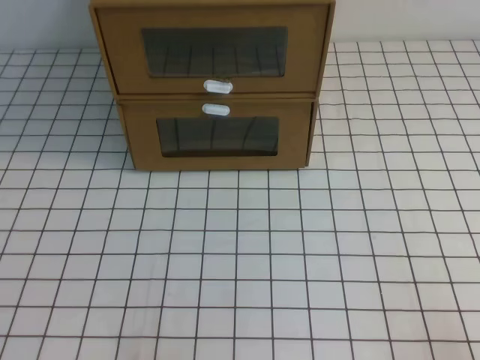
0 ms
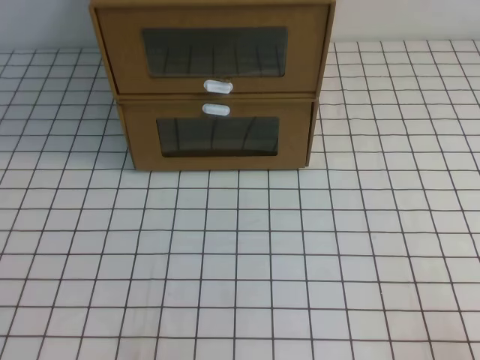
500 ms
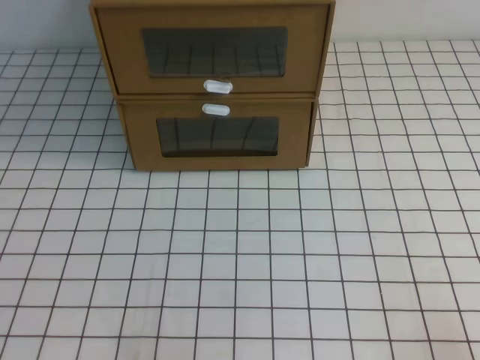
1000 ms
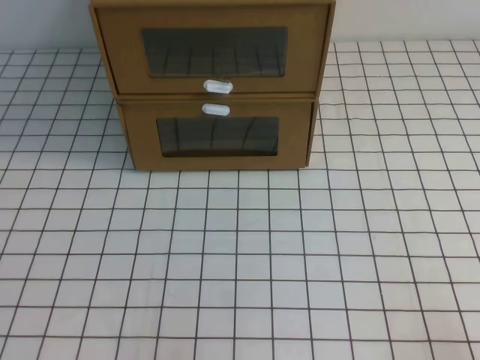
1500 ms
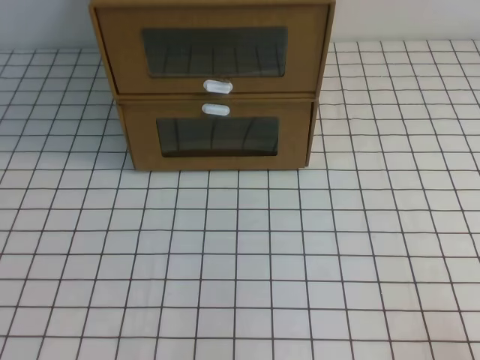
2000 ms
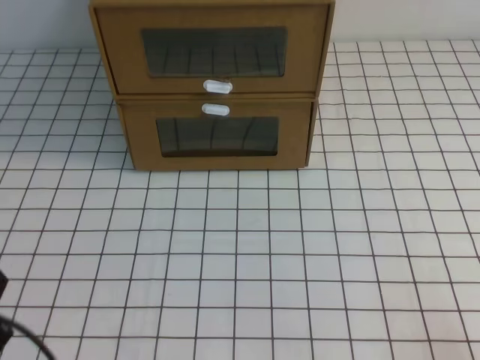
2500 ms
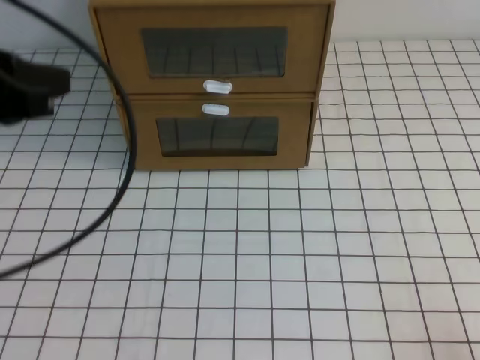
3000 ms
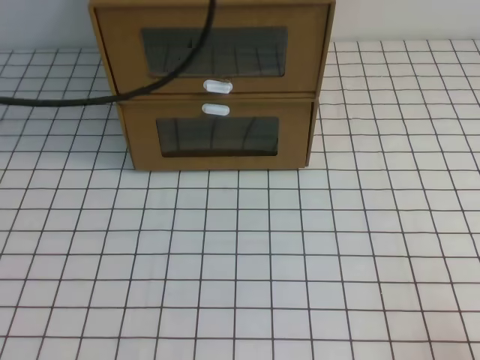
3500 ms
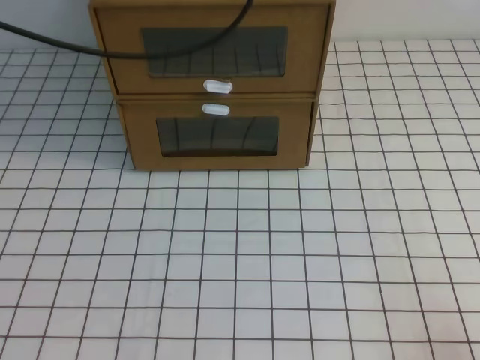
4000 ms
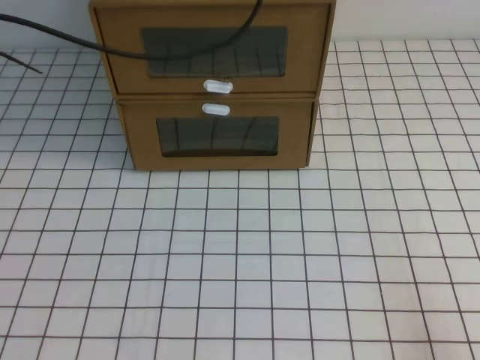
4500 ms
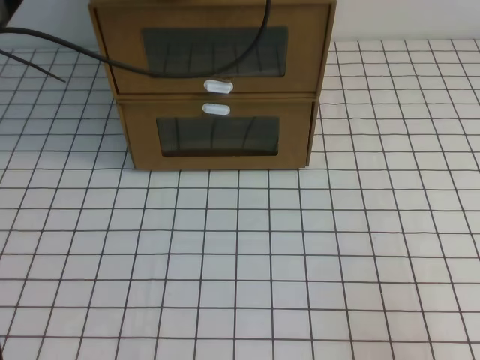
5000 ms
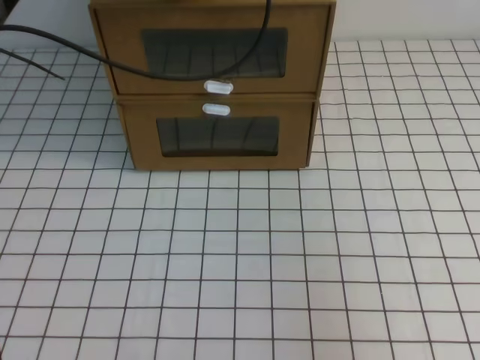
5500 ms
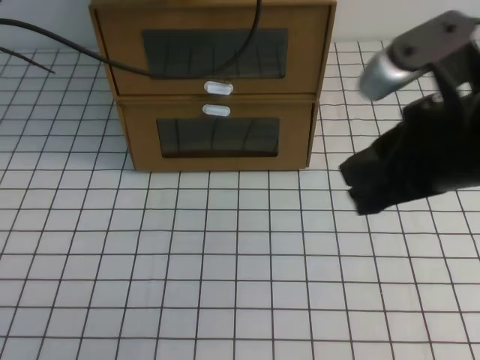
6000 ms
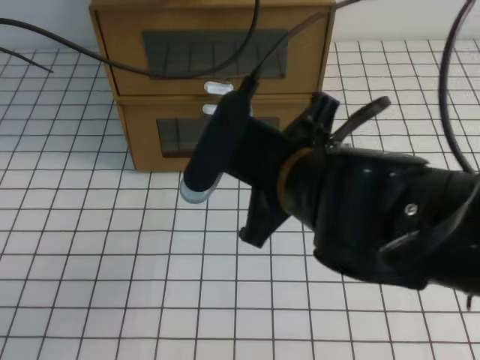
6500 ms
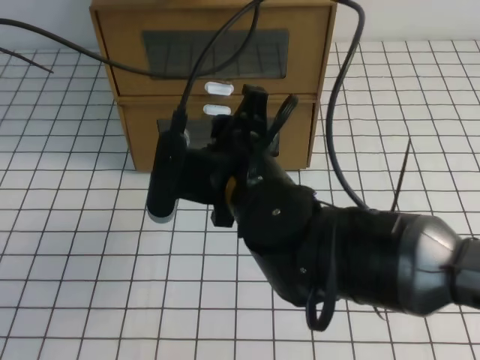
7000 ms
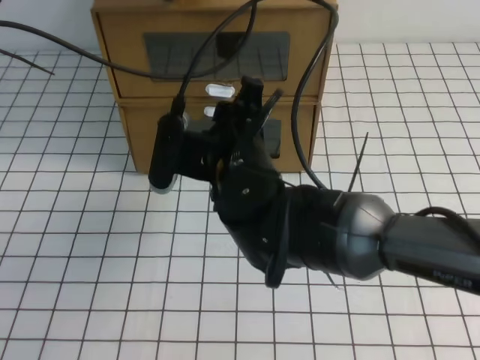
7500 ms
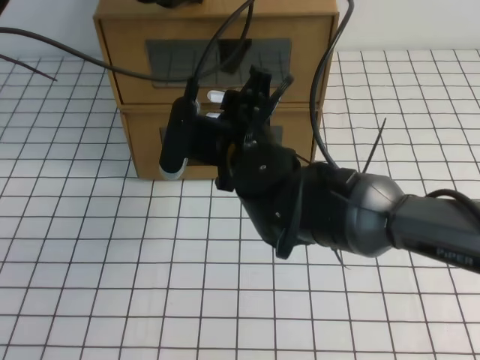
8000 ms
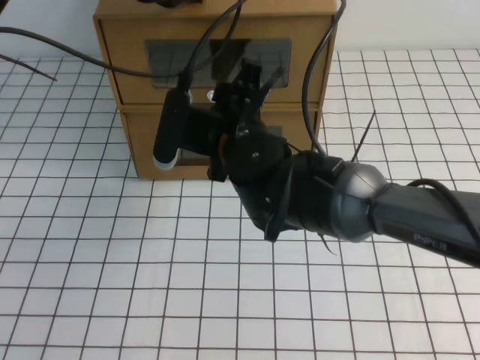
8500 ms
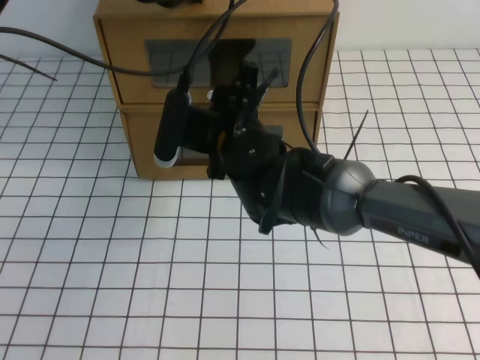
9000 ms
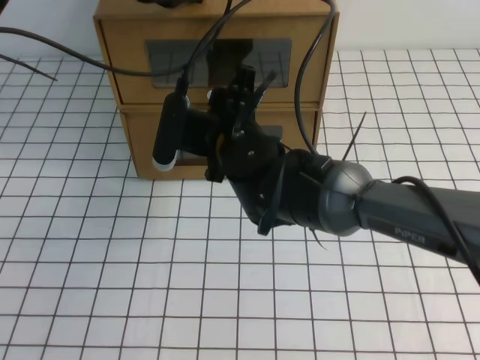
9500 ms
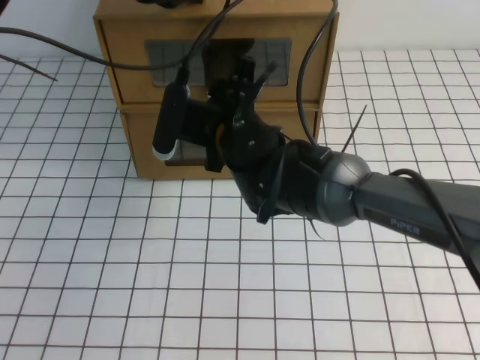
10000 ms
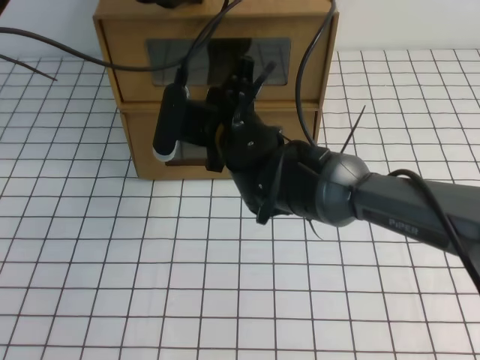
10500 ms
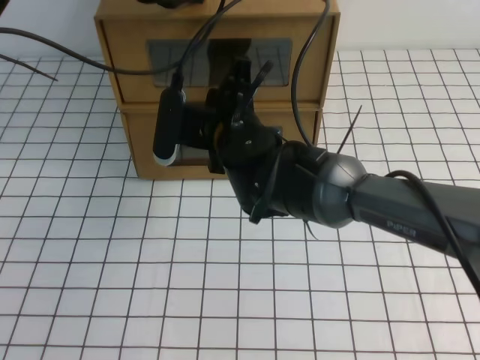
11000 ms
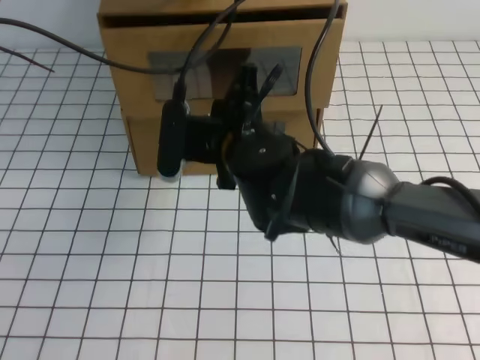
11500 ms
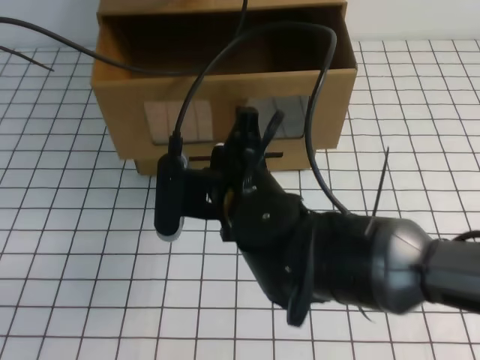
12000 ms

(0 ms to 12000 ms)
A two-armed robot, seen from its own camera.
Task of the whole recording: open the shoebox on the white tablecloth.
2000 ms - 4000 ms: The left gripper goes approximately 40 cm forward, upward and to the right.
4000 ms - 6000 ms: The left gripper moves forward and downward, approximately 10 cm, while the right gripper travels upward, forward and to the left by some 30 cm.
6000 ms - 8000 ms: The right gripper shifts approximately 25 cm to the left, forward and downward, and opens.
8000 ms - 10000 ms: There are only small adjustments of the grippers.
10000 ms - 12000 ms: The right gripper shifts some 10 cm backward, and closes up.

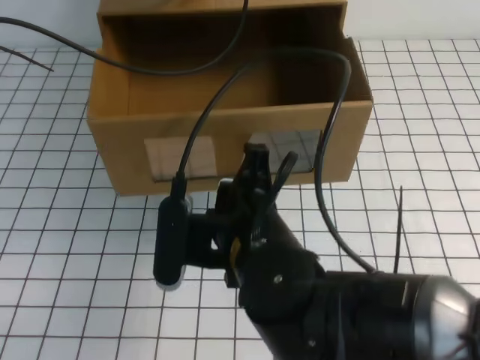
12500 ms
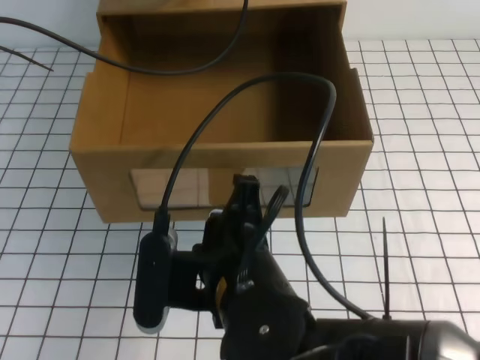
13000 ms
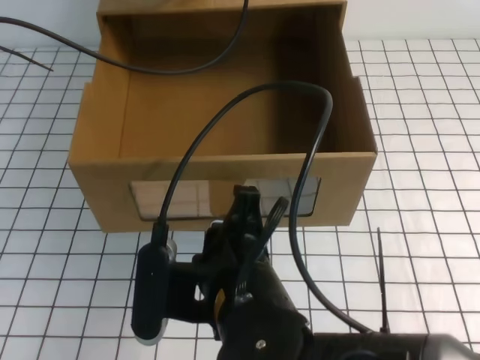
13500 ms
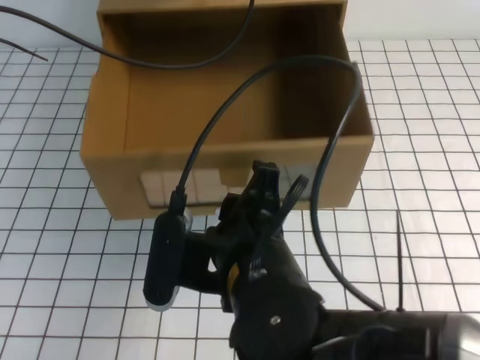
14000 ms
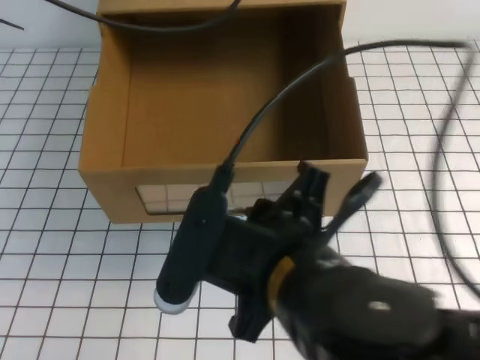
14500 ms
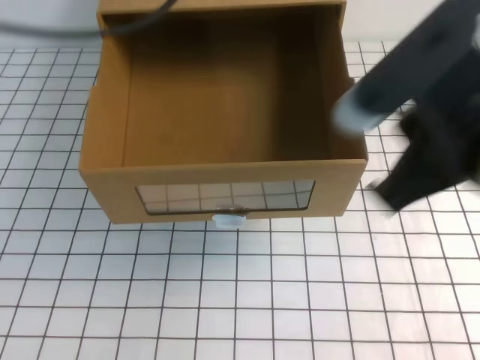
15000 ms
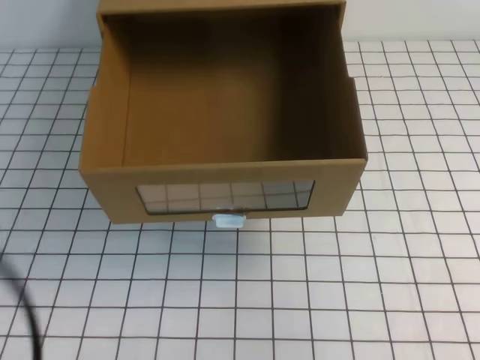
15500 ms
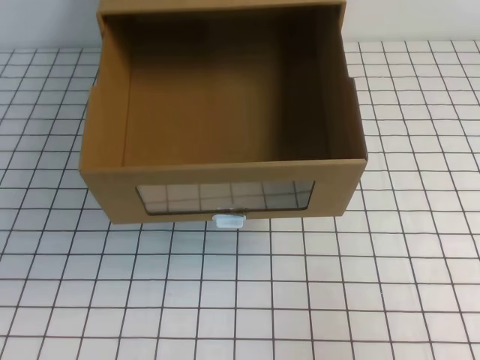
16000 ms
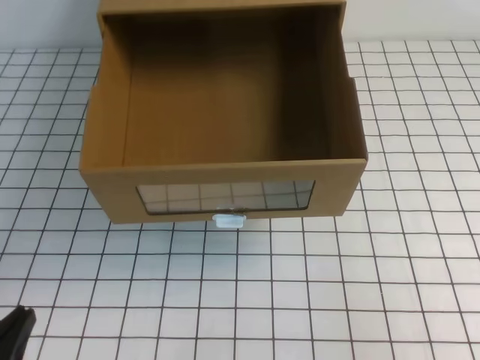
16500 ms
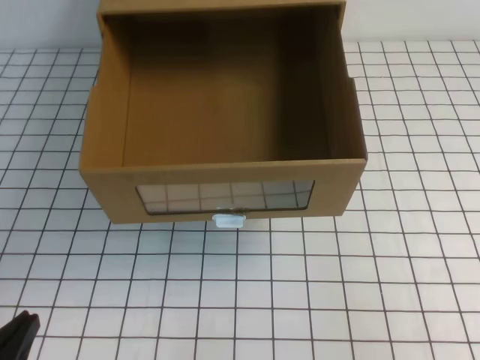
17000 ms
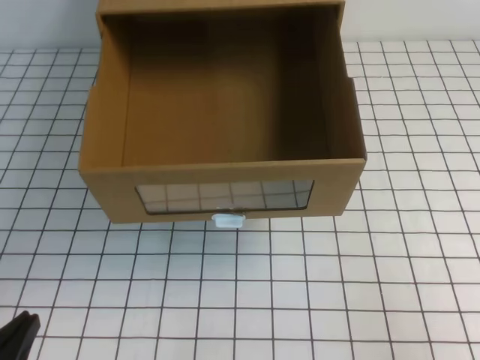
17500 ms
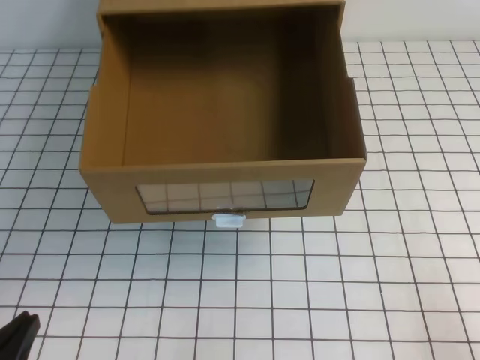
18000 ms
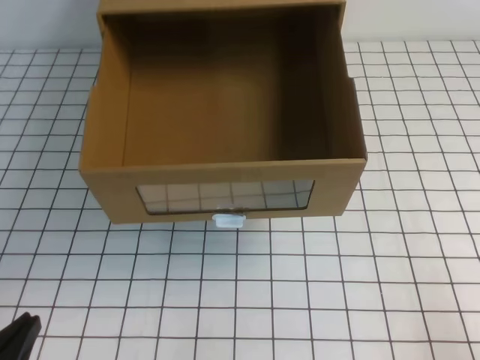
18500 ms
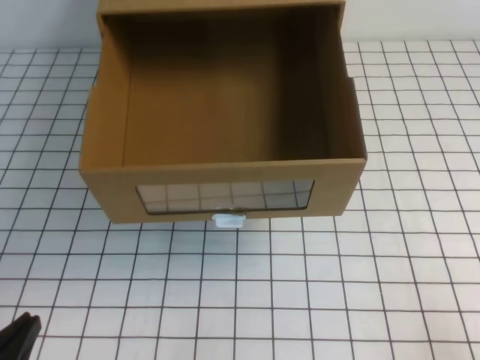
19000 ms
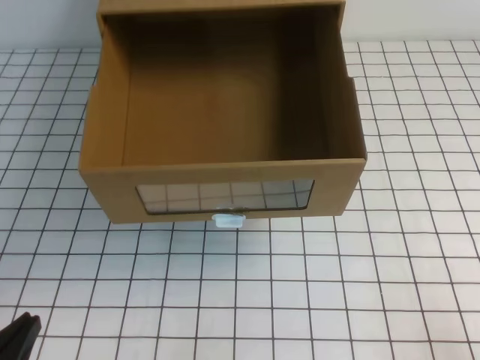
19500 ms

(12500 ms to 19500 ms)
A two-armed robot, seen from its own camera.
Task of the whole recording: open the shoebox on the white tablecloth.
Step, 12500 ms - 19500 ms: Open the shoe box.
12500 ms - 14500 ms: The left gripper moves upward, some 5 cm. Meanwhile the right gripper is displaced backward and upward by some 10 cm, and opens.
14500 ms - 16000 ms: The left gripper goes some 40 cm backward and downward. The right gripper heads to the right, covering some 25 cm, and closes up.
16000 ms - 17500 ms: The left gripper heads downward, covering roughly 10 cm.

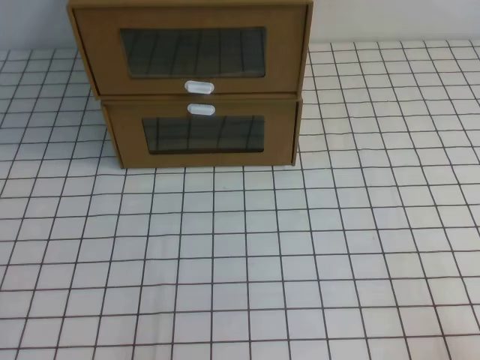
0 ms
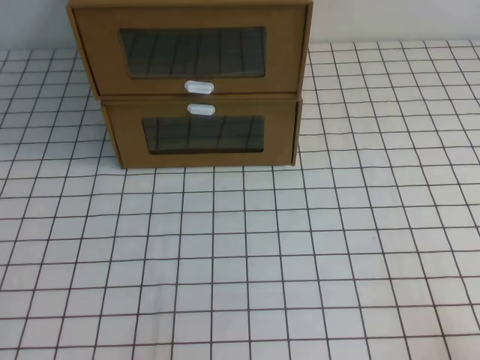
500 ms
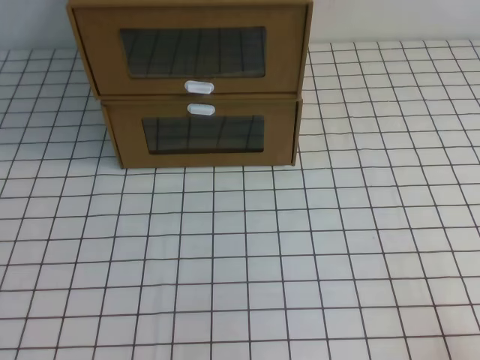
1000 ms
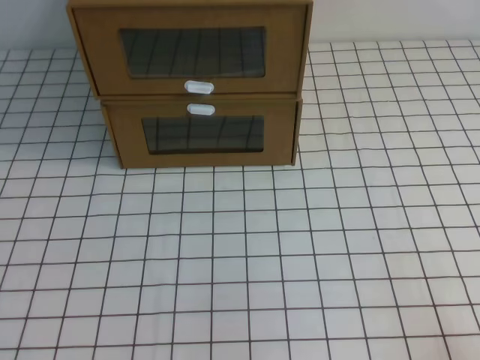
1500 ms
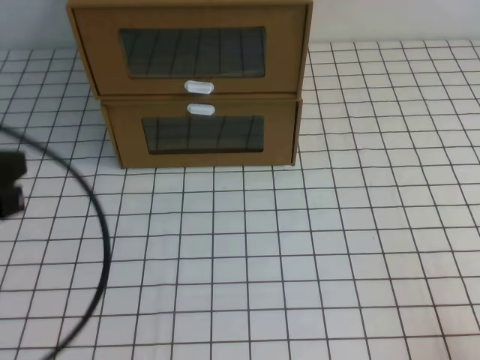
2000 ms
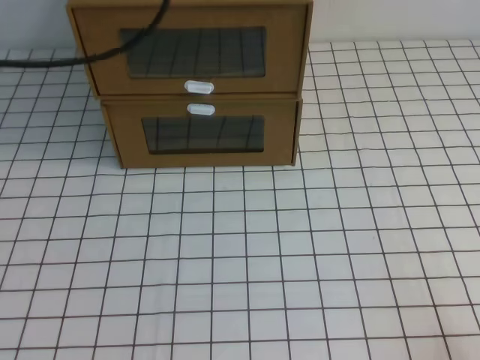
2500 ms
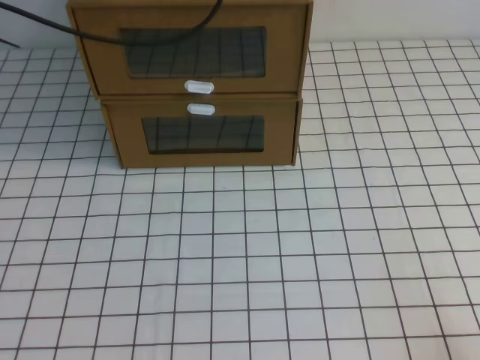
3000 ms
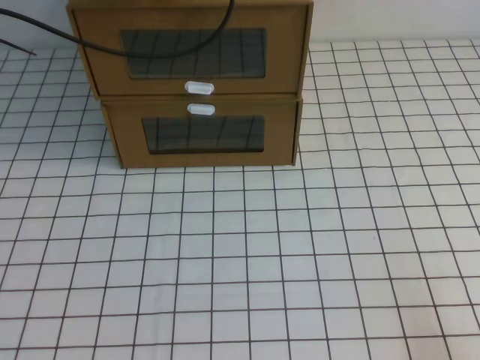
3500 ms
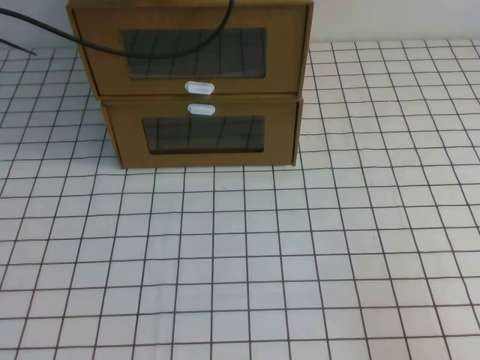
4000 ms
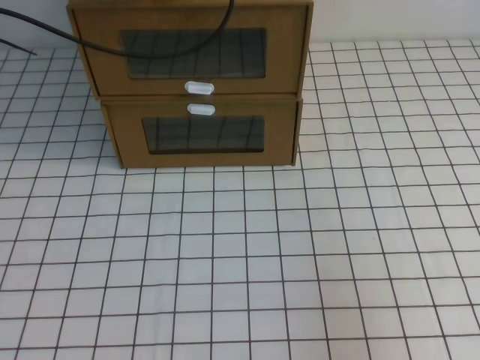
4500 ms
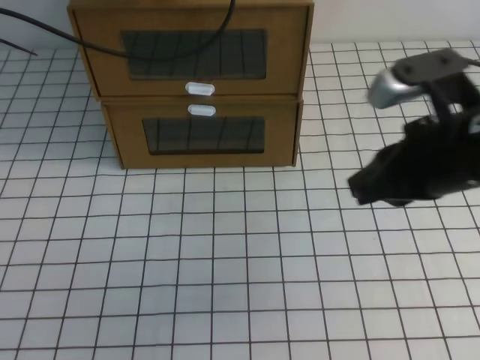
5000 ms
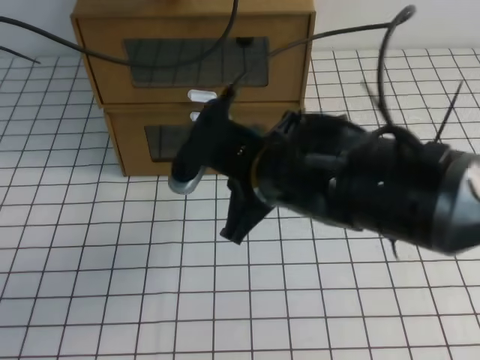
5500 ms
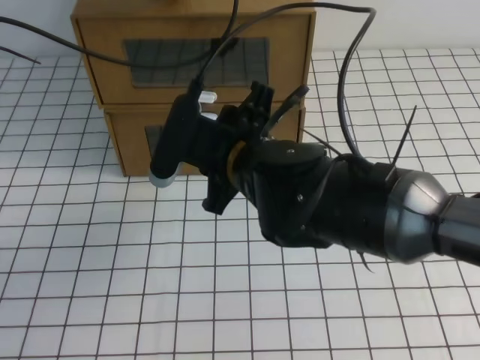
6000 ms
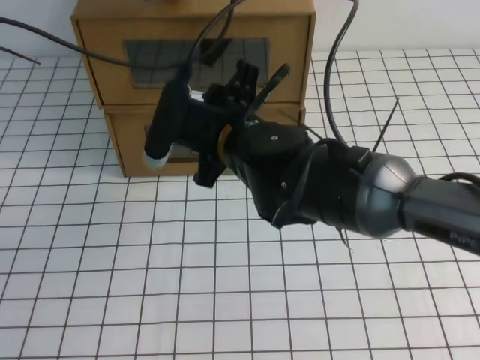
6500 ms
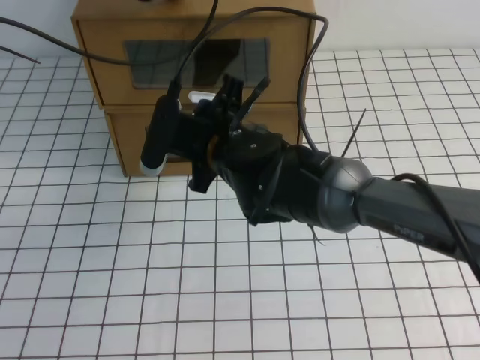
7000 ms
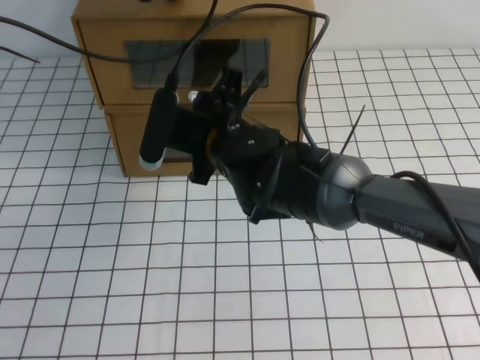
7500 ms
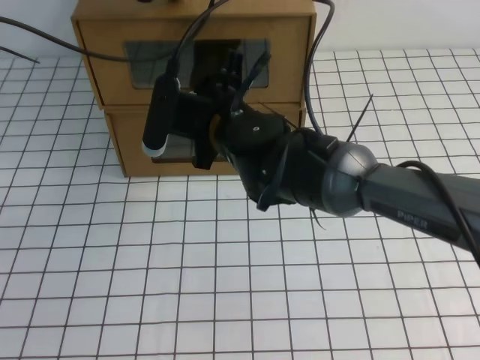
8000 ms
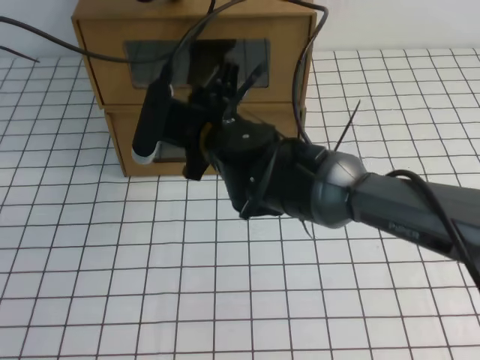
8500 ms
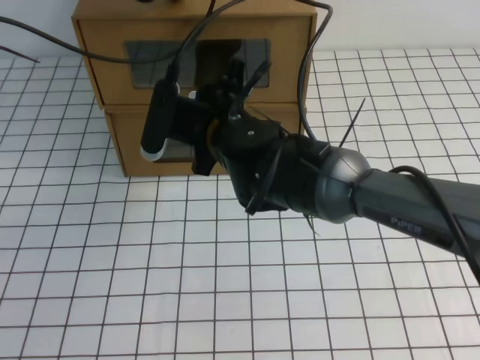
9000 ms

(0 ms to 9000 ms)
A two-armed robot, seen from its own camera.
Task of the whole recording: open the shoebox on the white tablecloth.
0 ms - 2000 ms: The left gripper travels upward and forward by about 20 cm.
2000 ms - 4500 ms: The right gripper goes some 15 cm upward and forward. The left gripper travels forward by approximately 30 cm.
4500 ms - 7000 ms: The right gripper travels to the left and forward by roughly 40 cm, and opens up.
7000 ms - 9000 ms: The grippers move only a little.
